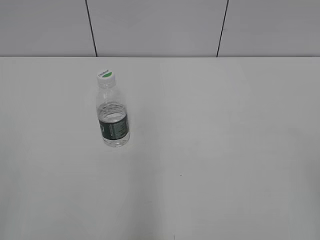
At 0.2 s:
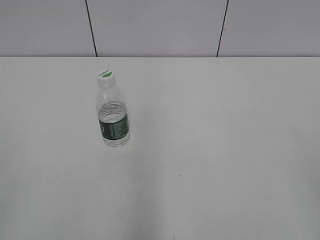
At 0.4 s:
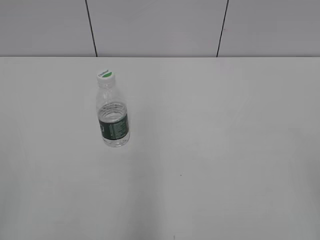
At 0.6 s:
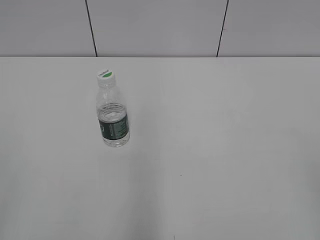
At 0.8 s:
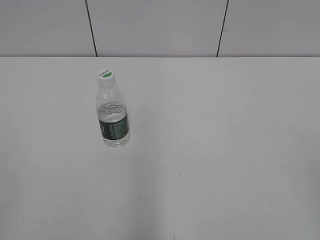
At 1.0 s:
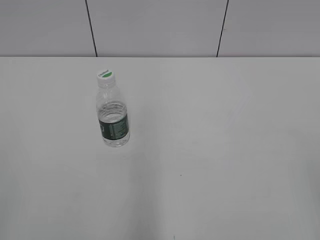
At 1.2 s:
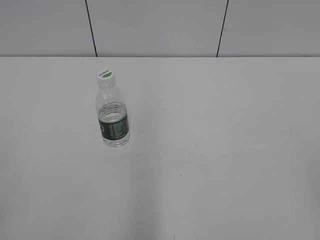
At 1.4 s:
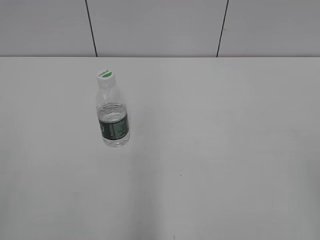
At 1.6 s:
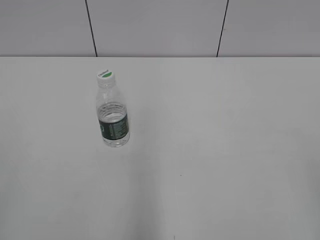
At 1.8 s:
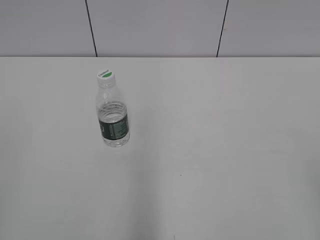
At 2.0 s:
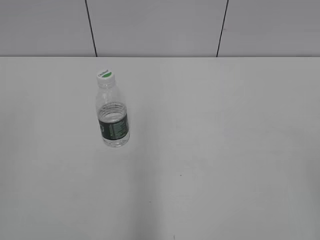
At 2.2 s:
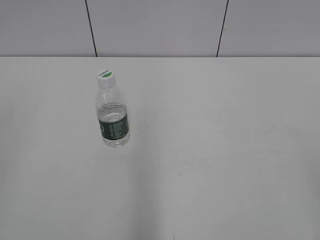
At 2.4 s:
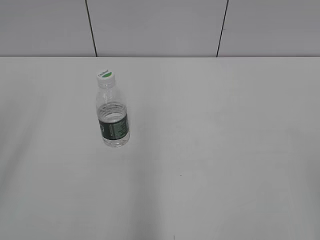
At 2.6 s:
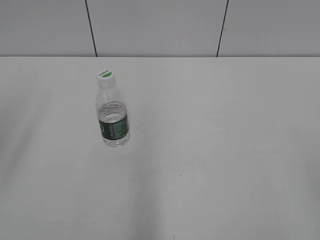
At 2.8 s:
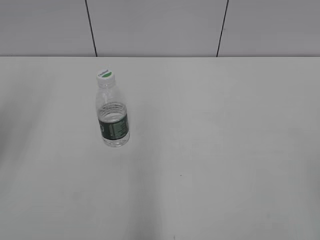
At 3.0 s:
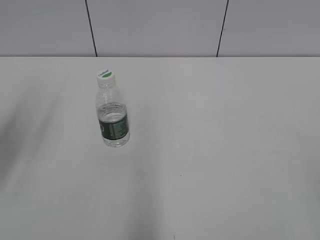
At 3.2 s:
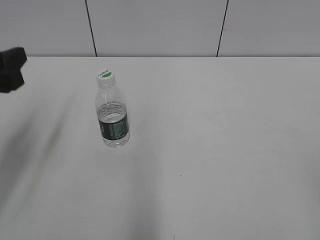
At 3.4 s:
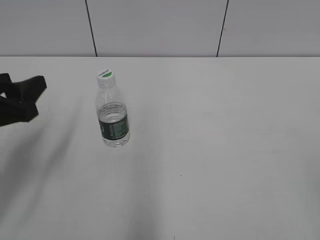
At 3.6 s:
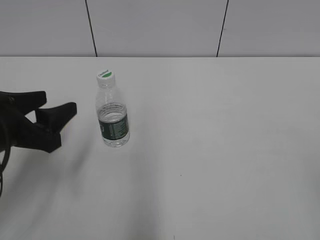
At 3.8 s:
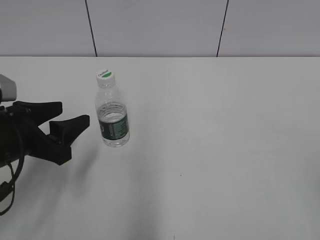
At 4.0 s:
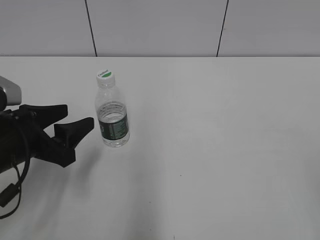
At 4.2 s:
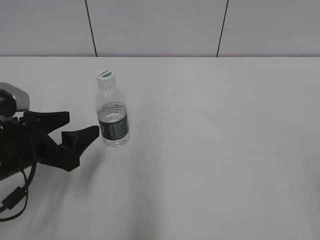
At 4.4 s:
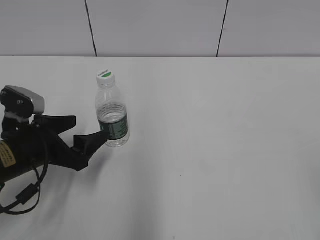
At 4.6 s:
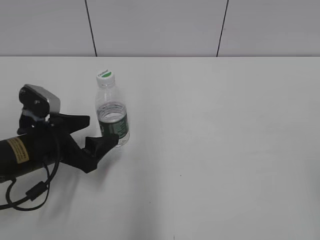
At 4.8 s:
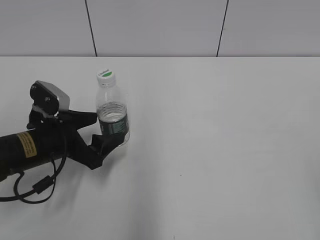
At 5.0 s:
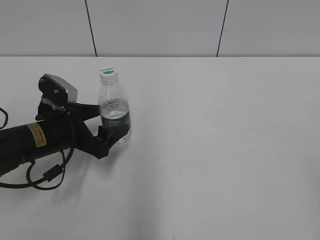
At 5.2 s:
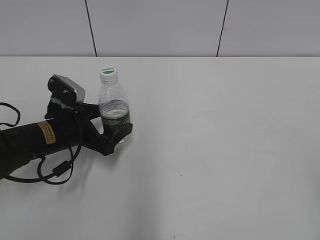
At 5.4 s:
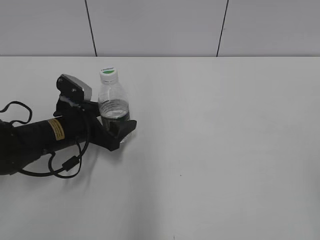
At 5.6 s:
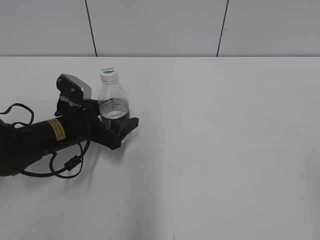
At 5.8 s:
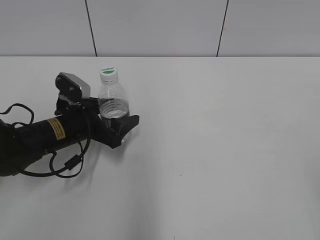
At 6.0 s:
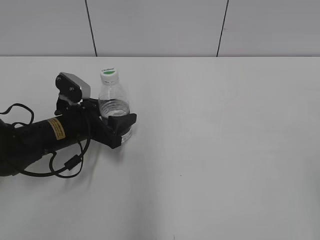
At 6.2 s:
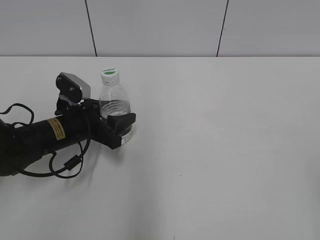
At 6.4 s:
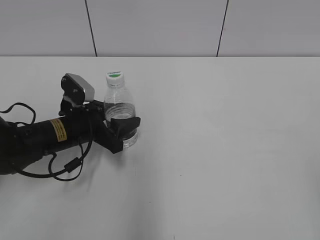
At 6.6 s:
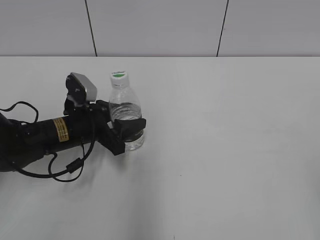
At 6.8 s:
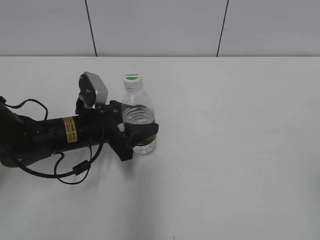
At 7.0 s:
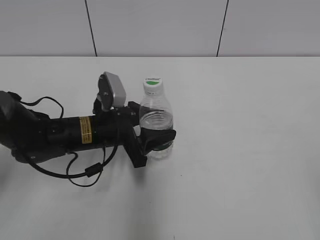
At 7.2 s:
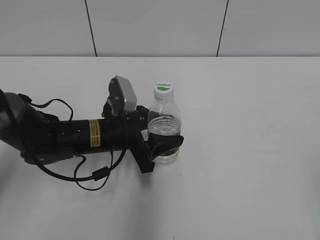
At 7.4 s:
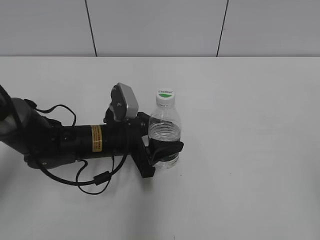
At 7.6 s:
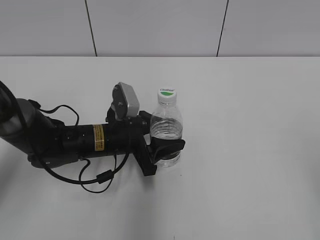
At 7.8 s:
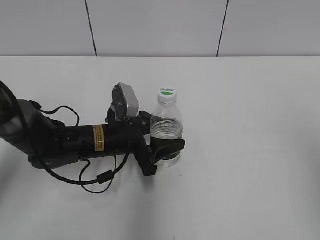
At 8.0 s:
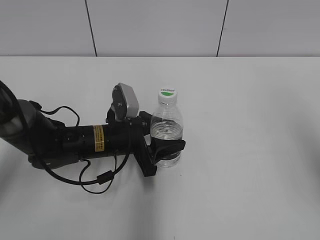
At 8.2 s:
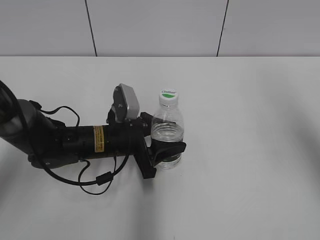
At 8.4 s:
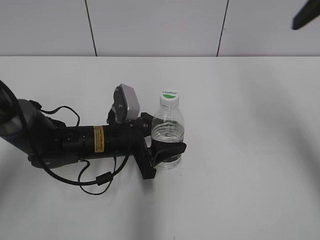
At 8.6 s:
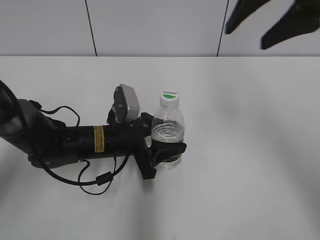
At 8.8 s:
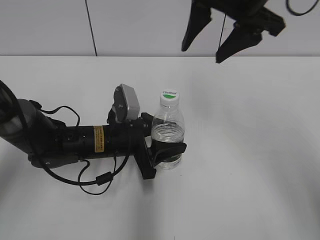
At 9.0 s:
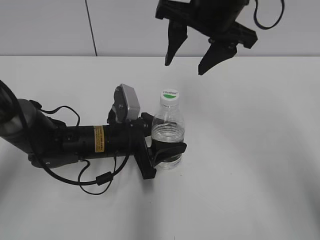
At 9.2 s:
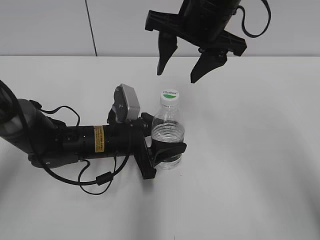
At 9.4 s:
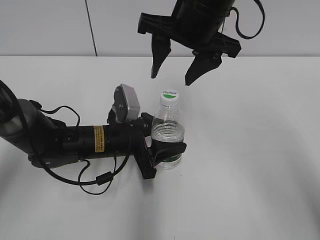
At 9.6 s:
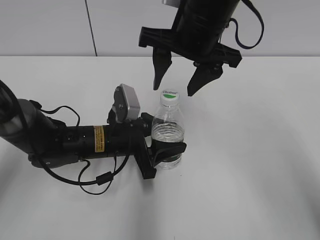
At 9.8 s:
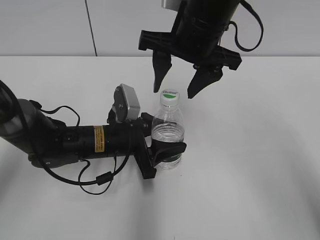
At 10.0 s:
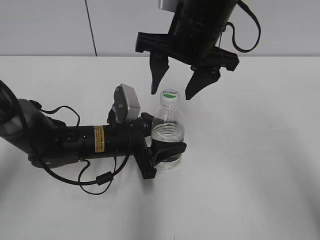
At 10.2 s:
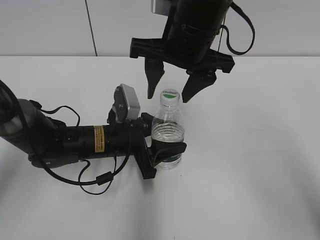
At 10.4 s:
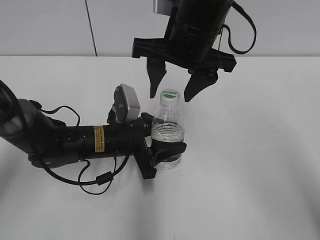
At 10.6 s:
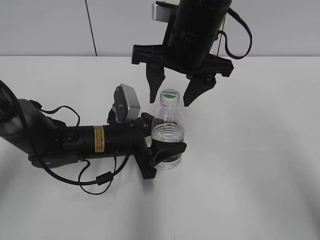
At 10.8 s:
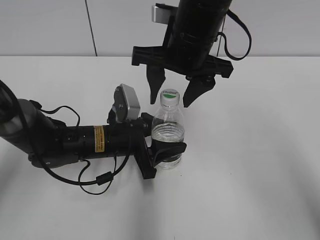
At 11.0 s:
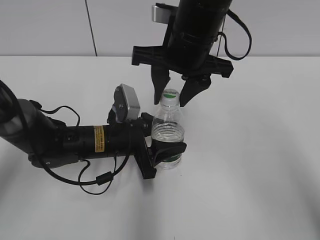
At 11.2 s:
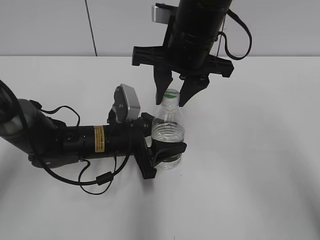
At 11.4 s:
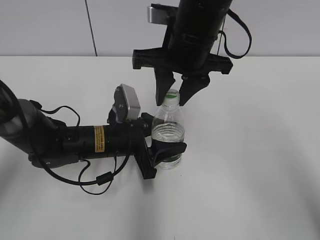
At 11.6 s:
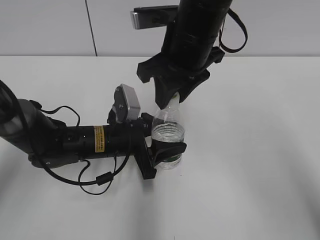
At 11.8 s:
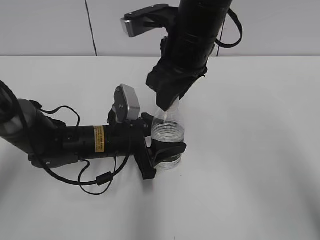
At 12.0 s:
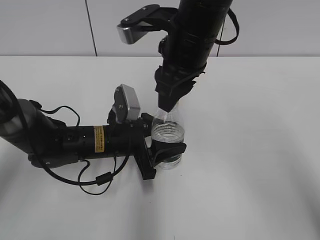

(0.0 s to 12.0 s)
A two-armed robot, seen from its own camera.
Step, 0.0 s - 6.2 s: Grasp the bottle and move it to the center of the table with the left gripper.
Step, 6.4 s - 7.8 s: Lift the bottle and move it to the center of the table with the left gripper.
1.6 s - 3.0 s: The left gripper shifts roughly 25 cm forward, and opens its fingers.
3.0 s - 4.4 s: The left gripper heads downward and to the right, covering some 20 cm, and opens.
4.4 s - 6.0 s: The left gripper moves forward, some 10 cm.
6.0 s - 7.6 s: The left gripper shifts roughly 10 cm to the right, while the right gripper ends up approximately 5 cm from where it was.
7.6 s - 9.0 s: The right gripper heads forward and to the left, covering about 40 cm.
9.0 s - 10.4 s: The right gripper moves approximately 5 cm.
10.4 s - 12.0 s: The right gripper closes.

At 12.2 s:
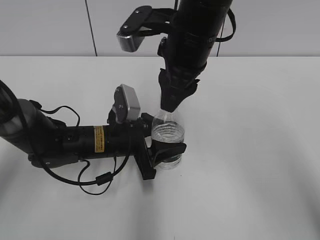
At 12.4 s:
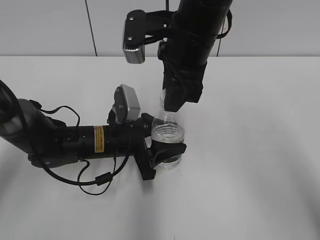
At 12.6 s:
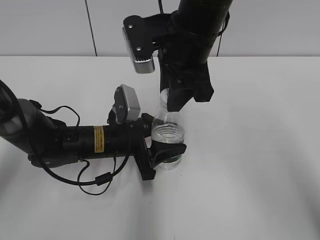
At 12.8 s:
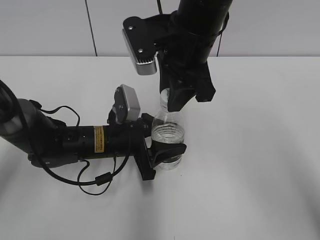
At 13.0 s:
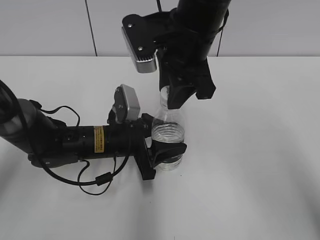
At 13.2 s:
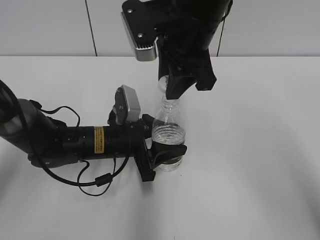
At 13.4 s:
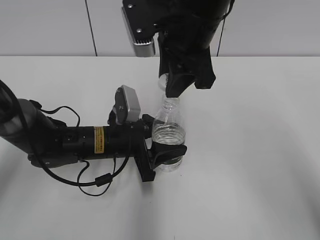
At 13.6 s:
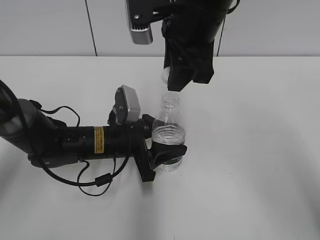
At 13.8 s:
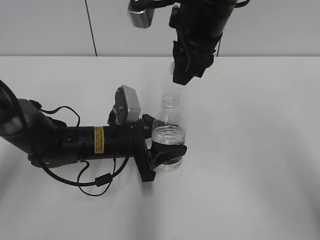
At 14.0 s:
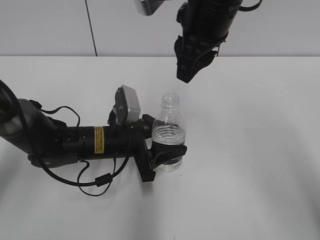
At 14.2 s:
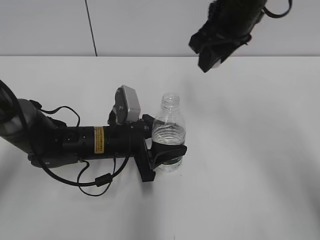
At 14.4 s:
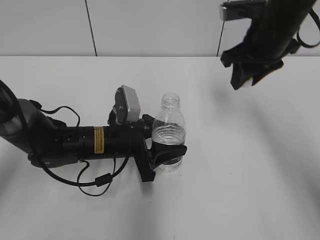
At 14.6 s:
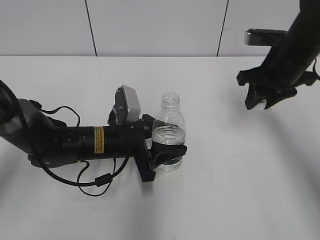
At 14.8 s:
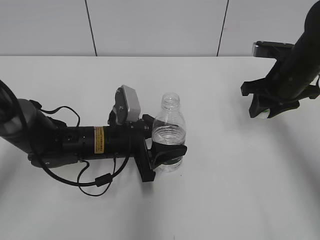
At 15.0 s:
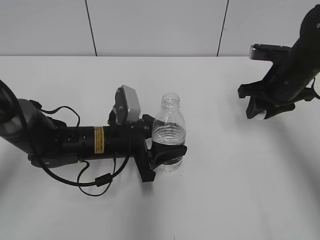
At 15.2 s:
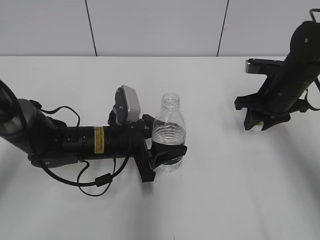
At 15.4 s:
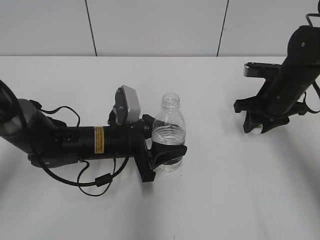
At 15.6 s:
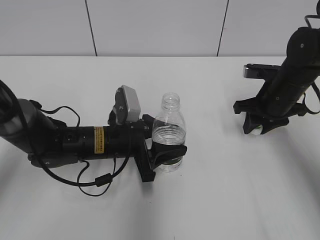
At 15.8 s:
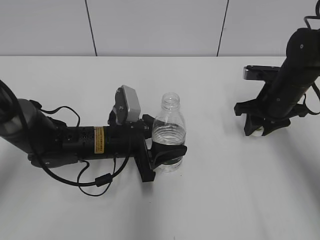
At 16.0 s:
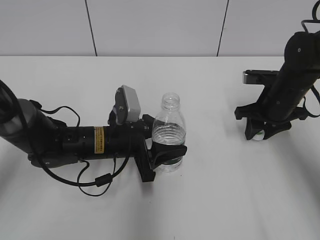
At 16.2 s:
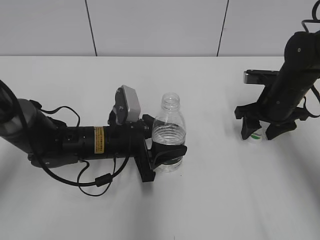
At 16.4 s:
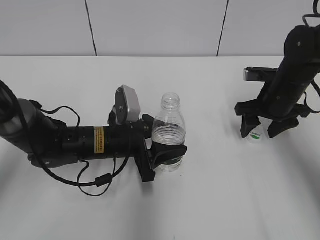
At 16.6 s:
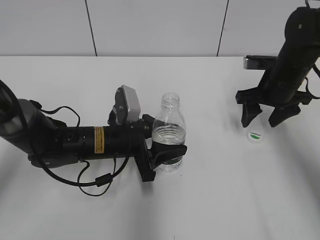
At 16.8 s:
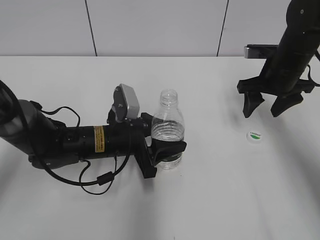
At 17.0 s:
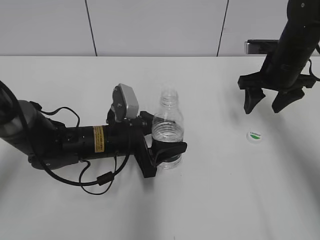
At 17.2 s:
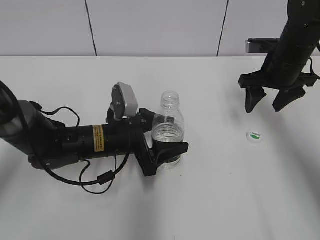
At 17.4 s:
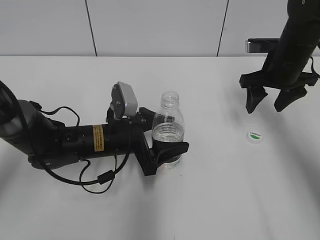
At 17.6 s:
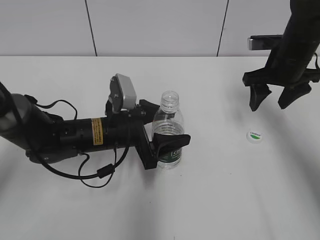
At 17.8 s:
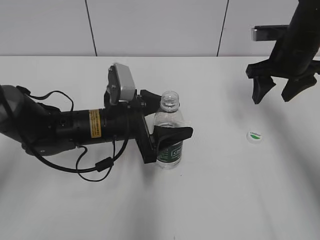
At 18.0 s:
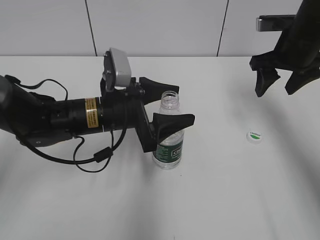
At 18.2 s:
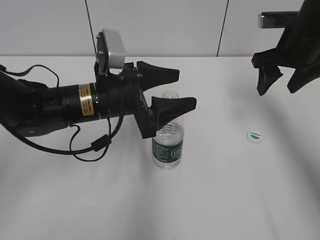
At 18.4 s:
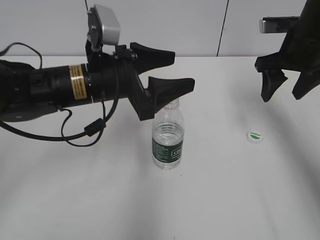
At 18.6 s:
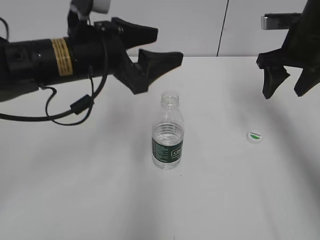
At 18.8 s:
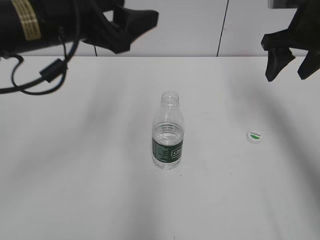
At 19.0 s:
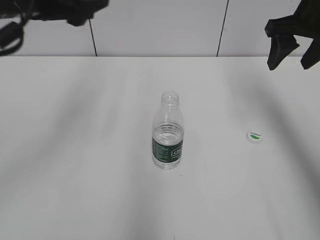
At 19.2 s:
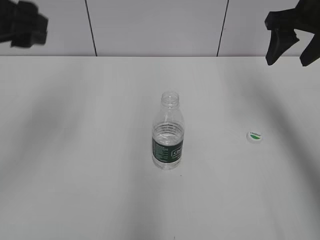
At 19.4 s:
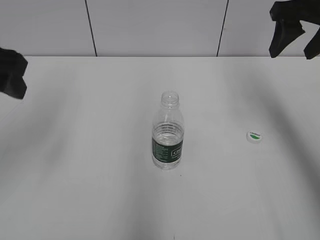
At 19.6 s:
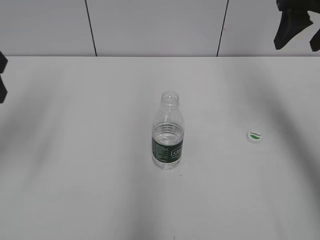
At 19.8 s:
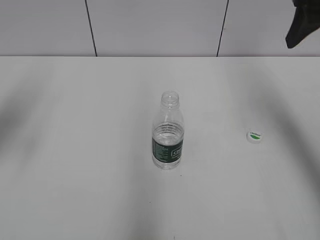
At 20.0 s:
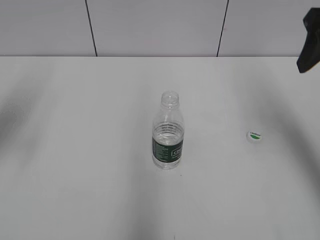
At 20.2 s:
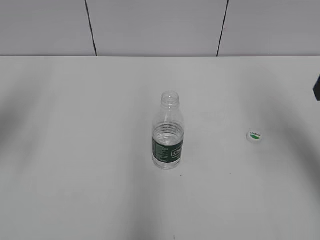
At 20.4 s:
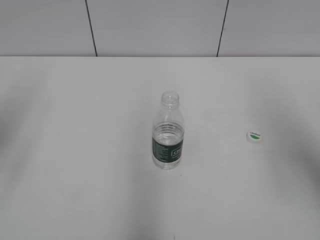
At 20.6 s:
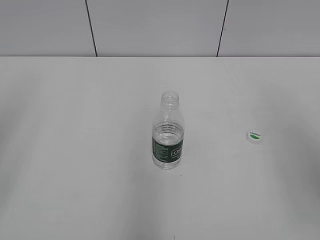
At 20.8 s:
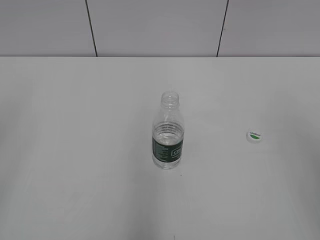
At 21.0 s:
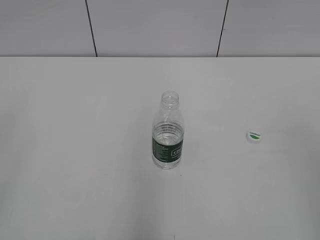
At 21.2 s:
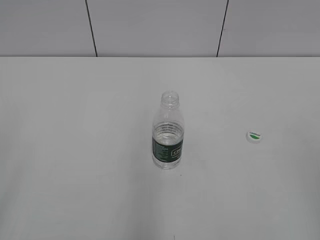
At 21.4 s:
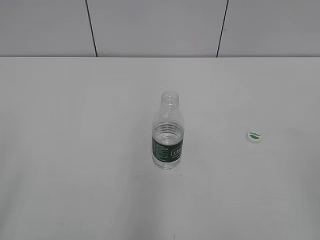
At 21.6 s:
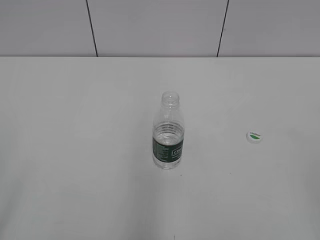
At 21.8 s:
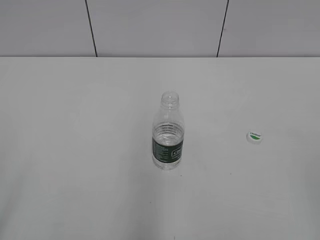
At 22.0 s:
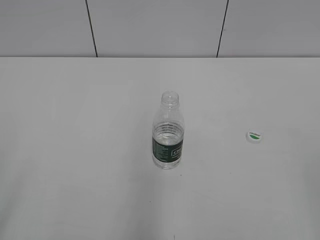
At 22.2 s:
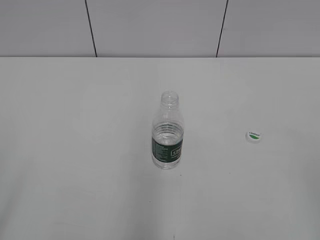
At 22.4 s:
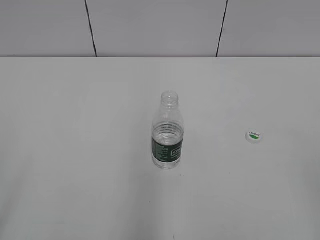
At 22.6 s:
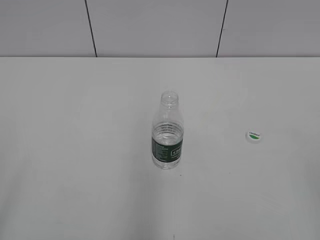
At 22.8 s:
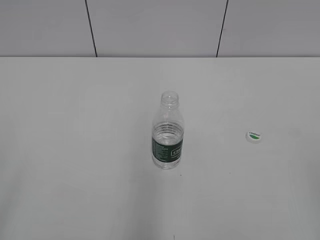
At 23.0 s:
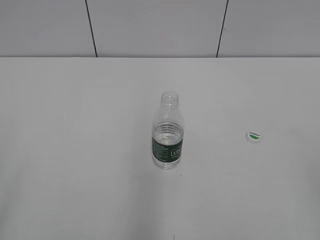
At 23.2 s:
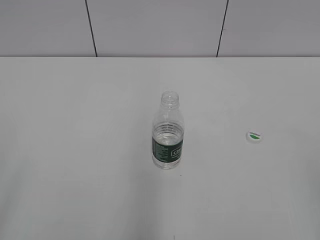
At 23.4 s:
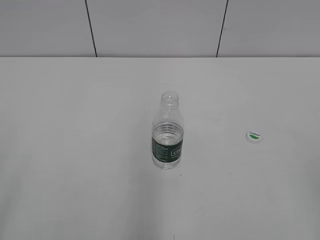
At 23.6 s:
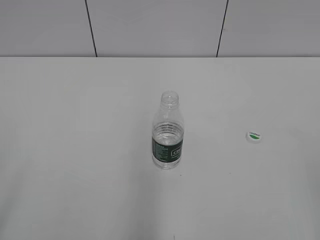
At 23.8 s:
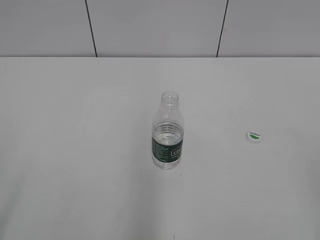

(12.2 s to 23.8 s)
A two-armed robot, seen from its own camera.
Step, 13.8 s - 16.4 s: Place the bottle cap on the table with the right gripper.
Step, 16.6 s - 19.0 s: Place the bottle on the table with the left gripper.
13.6 s - 15.0 s: The right gripper moves to the right and downward, roughly 25 cm.
15.0 s - 16.6 s: The right gripper opens.
16.6 s - 18.0 s: The two grippers go some 5 cm upward. The left gripper opens.
18.0 s - 19.4 s: The left gripper travels upward and to the left by some 25 cm, while the right gripper goes about 10 cm upward.
19.4 s - 21.0 s: The left gripper heads backward, covering approximately 20 cm. Meanwhile the right gripper heads backward, covering approximately 30 cm.
